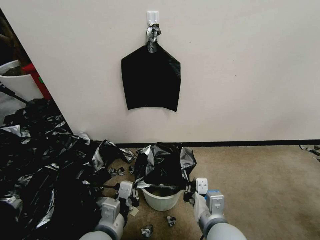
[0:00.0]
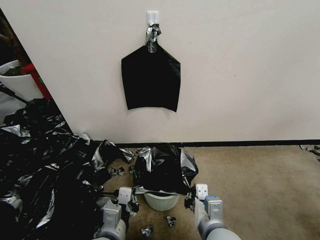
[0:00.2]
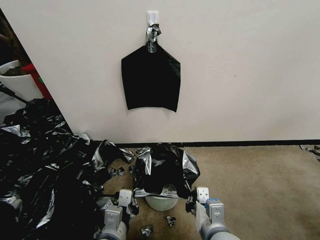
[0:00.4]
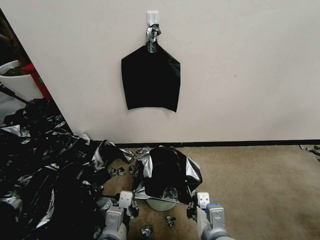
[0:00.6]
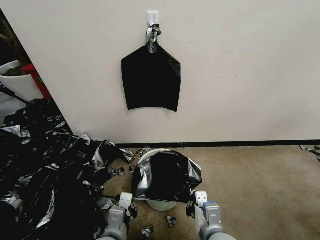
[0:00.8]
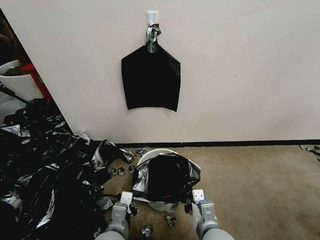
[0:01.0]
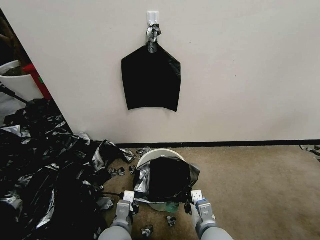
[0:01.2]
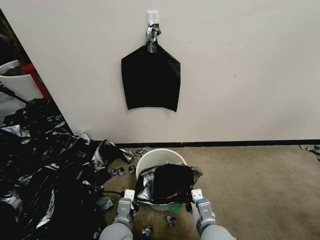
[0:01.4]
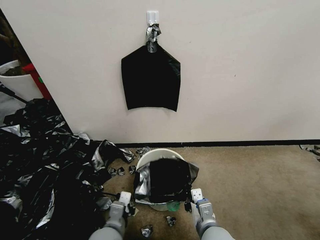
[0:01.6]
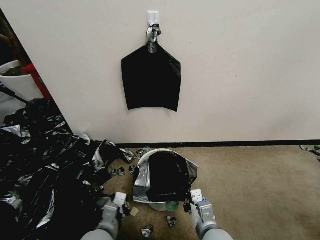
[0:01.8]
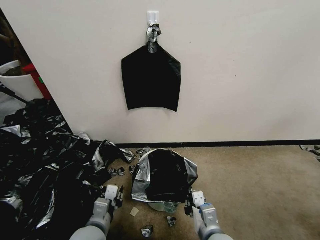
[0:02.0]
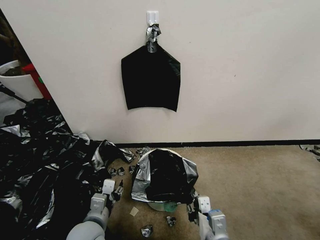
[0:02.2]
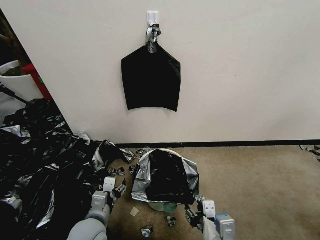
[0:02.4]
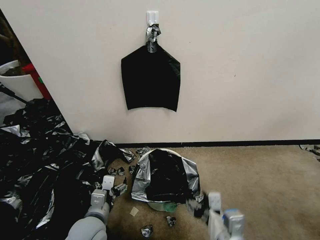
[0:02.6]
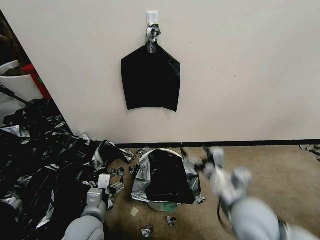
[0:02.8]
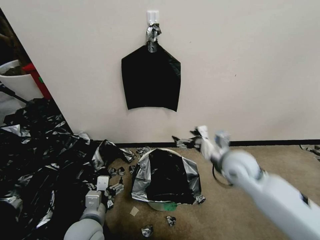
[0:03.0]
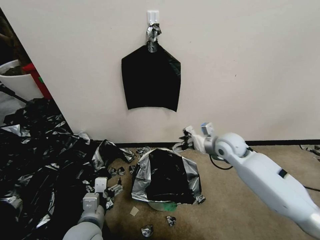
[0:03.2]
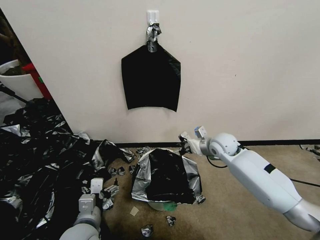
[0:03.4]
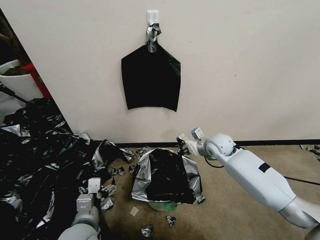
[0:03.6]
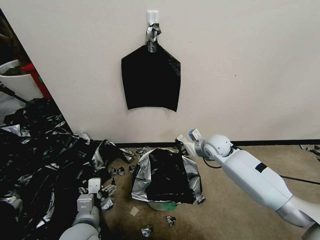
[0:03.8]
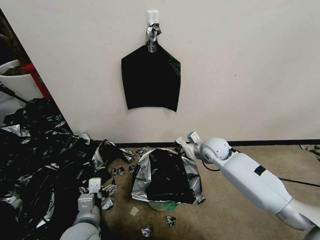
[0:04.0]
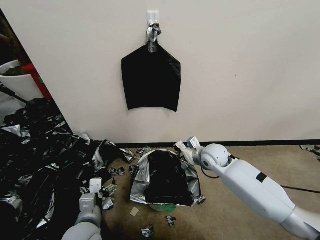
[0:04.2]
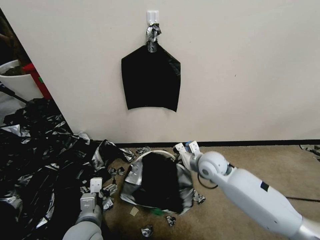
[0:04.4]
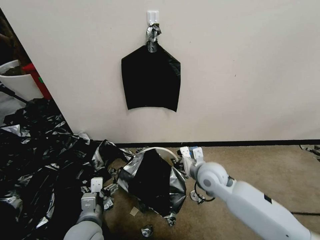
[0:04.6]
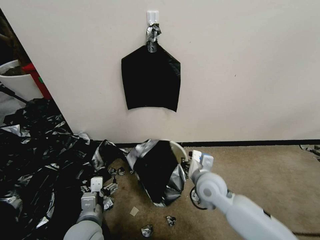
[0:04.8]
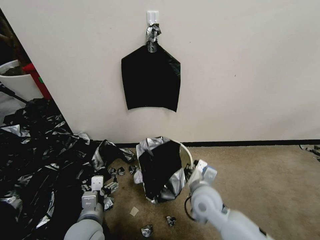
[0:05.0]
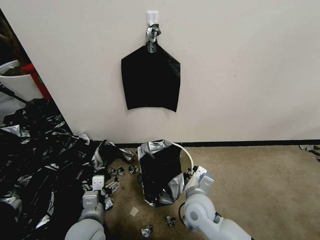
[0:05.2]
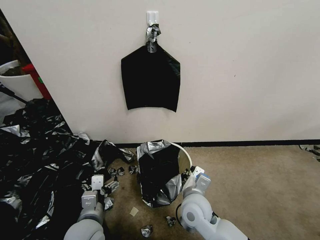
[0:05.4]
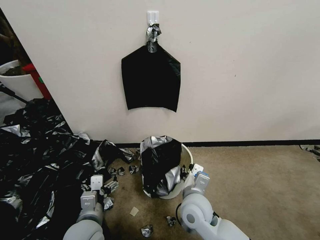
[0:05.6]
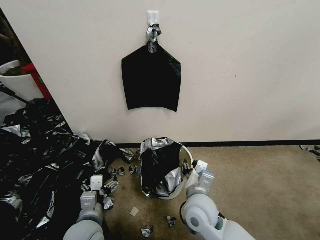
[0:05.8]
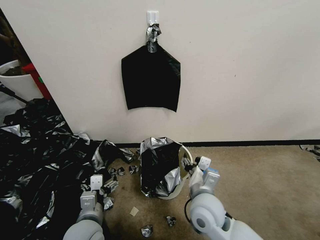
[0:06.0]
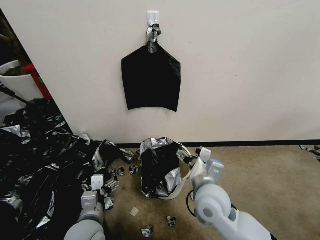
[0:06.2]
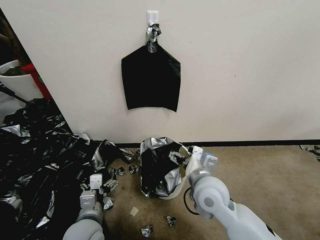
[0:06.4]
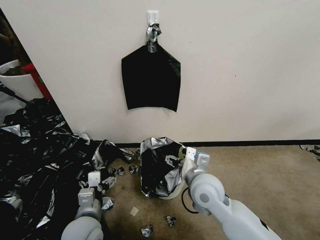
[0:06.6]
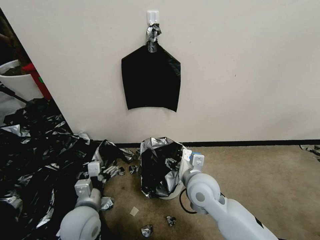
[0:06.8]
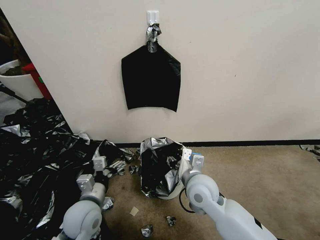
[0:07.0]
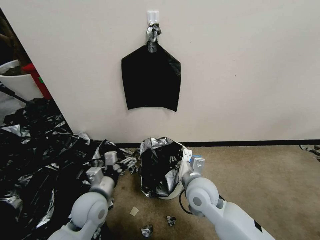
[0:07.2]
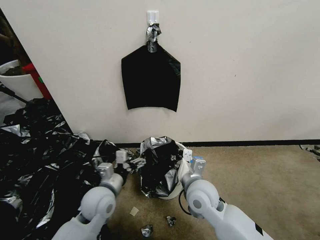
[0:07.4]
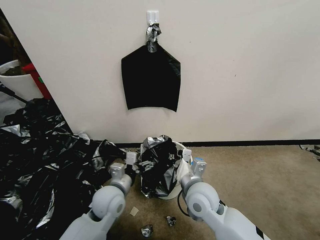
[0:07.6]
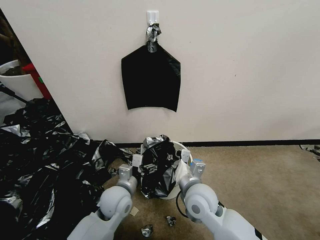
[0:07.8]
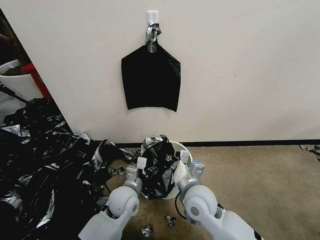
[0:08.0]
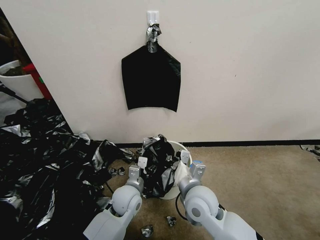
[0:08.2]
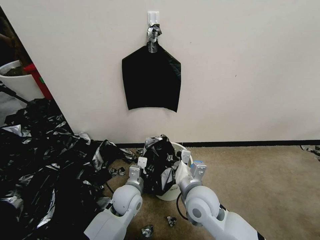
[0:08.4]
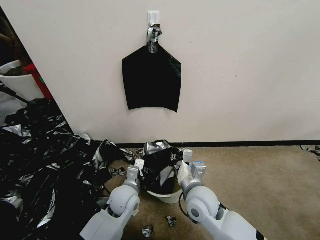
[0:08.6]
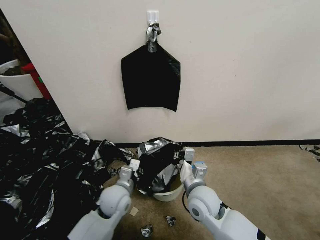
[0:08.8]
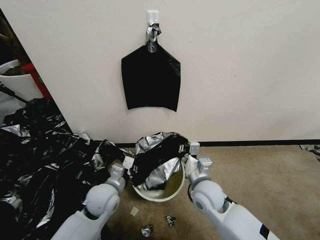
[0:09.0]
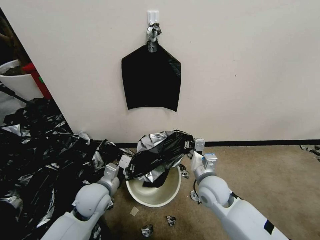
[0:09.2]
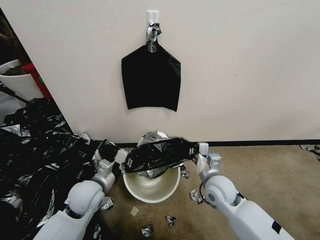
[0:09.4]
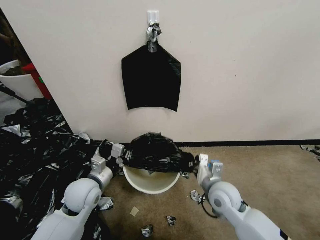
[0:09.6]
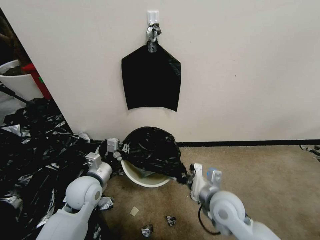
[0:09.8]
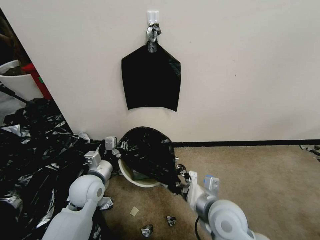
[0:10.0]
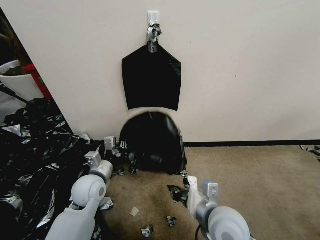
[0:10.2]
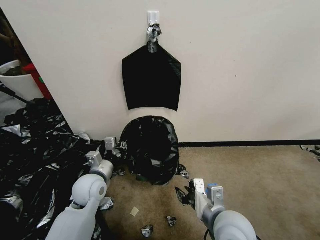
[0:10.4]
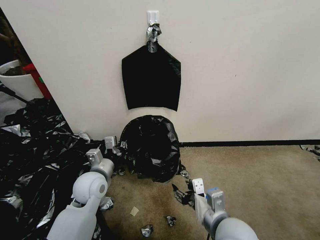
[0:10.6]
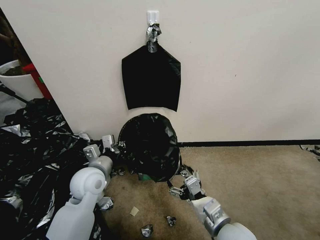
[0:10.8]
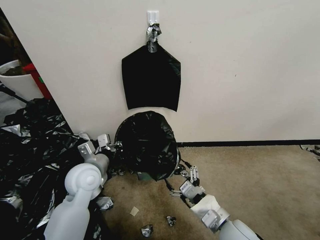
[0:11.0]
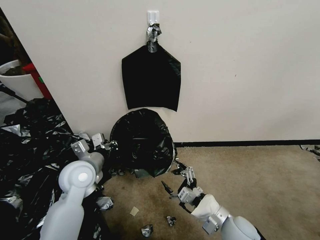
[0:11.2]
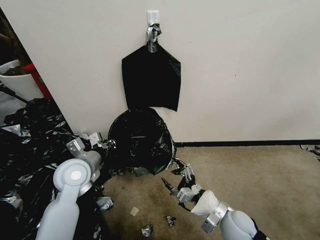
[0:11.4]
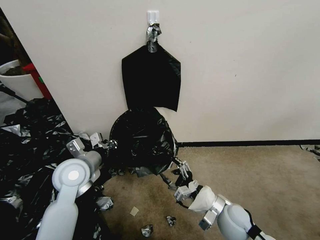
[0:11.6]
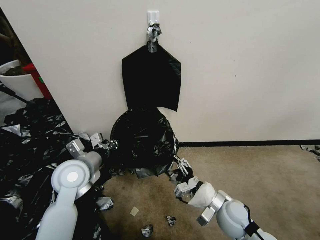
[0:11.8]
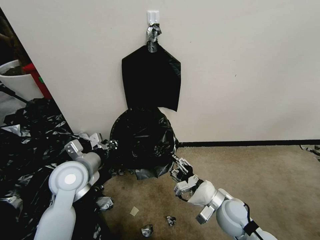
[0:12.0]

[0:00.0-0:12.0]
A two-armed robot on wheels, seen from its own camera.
Task of the whole recording: Place a trash bag onto the trash bin.
0:00.0 to 0:01.6: The two grippers go about 10 cm downward.
0:01.6 to 0:03.0: The left gripper shifts about 5 cm to the left, and opens up, while the right gripper is displaced forward, upward and to the right by some 25 cm, and opens up.
0:03.0 to 0:04.4: The right gripper moves downward and to the left, roughly 10 cm, goes forward and returns, approximately 10 cm each way, and closes its fingers.
0:04.4 to 0:06.0: The right gripper goes about 15 cm backward, and opens its fingers.
0:06.0 to 0:07.6: The left gripper shifts approximately 10 cm forward. The right gripper closes up.
0:07.6 to 0:09.0: The left gripper closes its fingers.
0:09.0 to 0:10.4: The right gripper shifts approximately 10 cm backward and upward, and opens up. Meanwhile the left gripper moves approximately 5 cm.
0:10.4 to 0:12.0: The left gripper travels upward by about 10 cm; the right gripper heads downward and forward, covering roughly 10 cm, and opens and closes again.

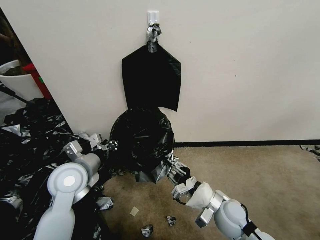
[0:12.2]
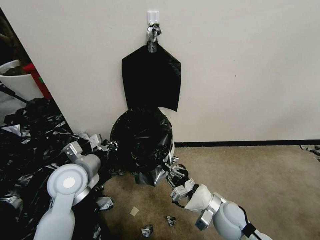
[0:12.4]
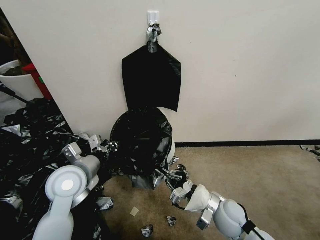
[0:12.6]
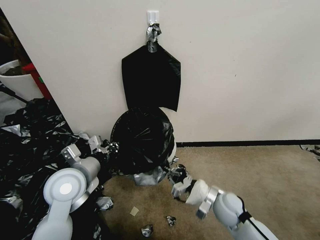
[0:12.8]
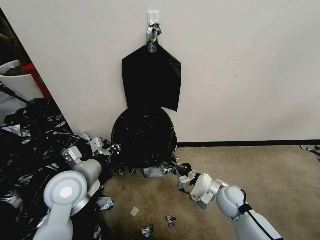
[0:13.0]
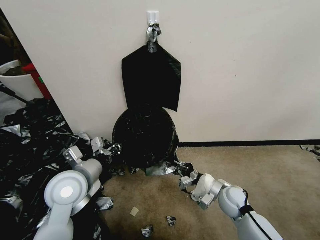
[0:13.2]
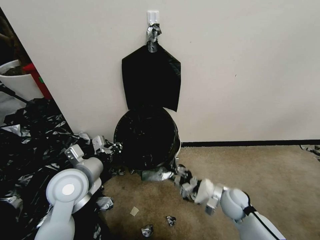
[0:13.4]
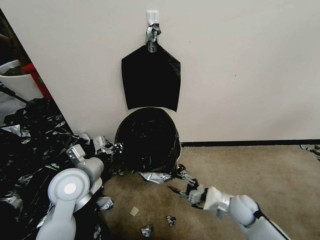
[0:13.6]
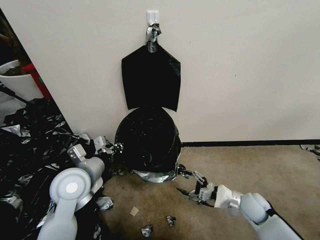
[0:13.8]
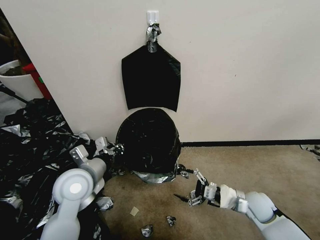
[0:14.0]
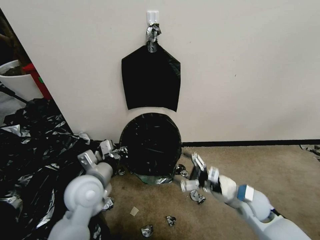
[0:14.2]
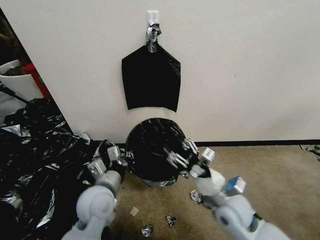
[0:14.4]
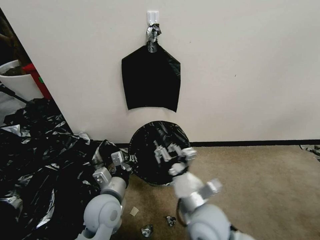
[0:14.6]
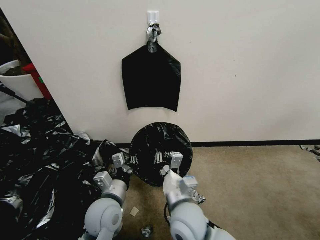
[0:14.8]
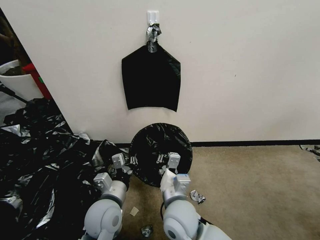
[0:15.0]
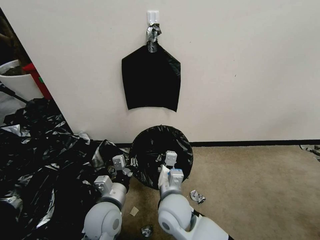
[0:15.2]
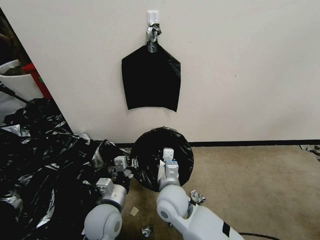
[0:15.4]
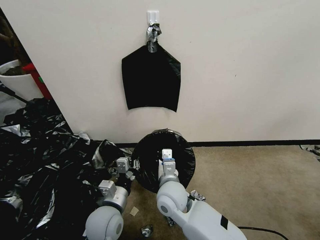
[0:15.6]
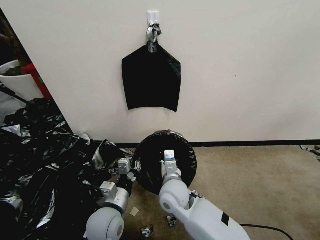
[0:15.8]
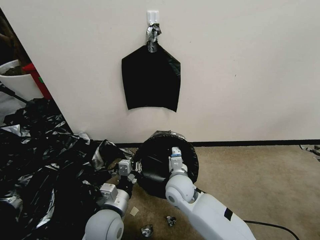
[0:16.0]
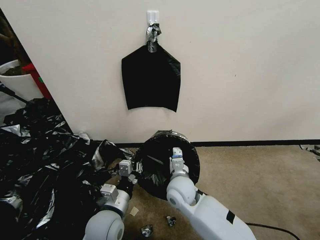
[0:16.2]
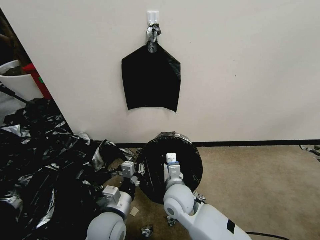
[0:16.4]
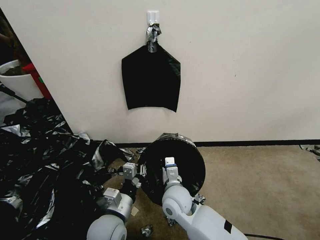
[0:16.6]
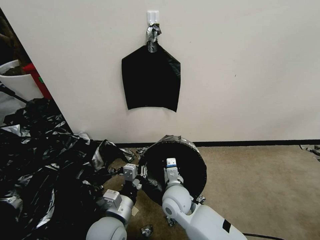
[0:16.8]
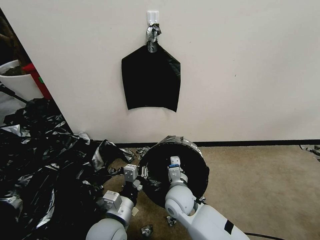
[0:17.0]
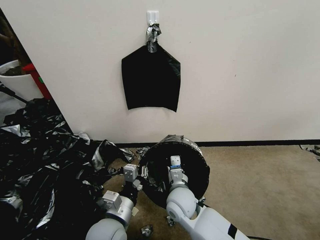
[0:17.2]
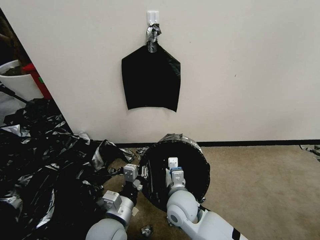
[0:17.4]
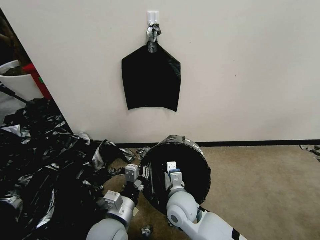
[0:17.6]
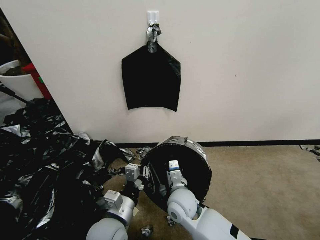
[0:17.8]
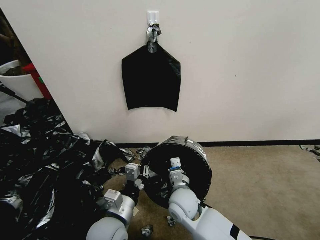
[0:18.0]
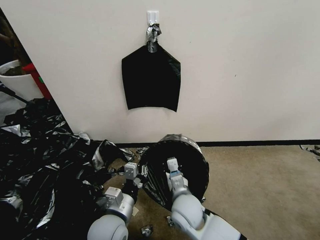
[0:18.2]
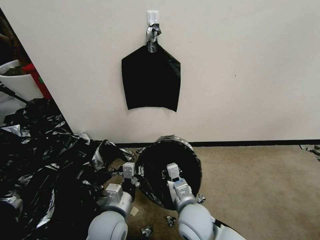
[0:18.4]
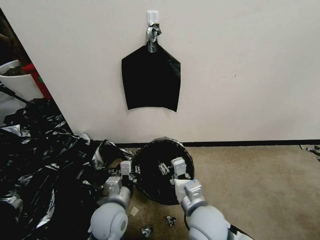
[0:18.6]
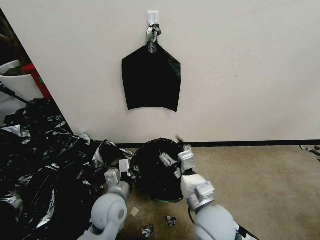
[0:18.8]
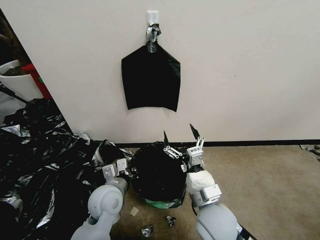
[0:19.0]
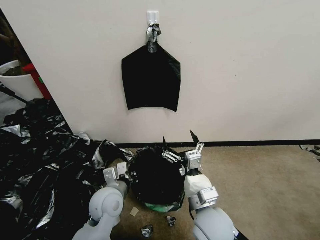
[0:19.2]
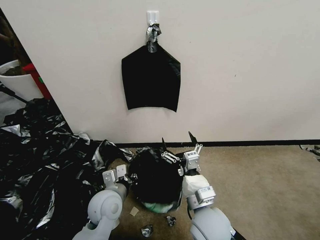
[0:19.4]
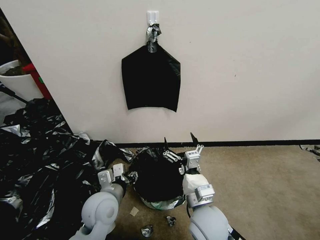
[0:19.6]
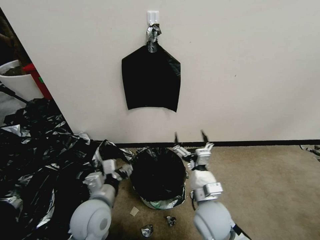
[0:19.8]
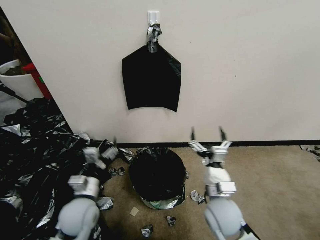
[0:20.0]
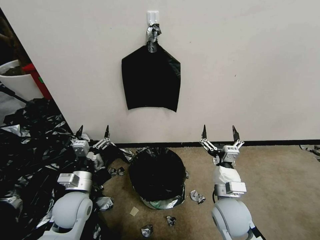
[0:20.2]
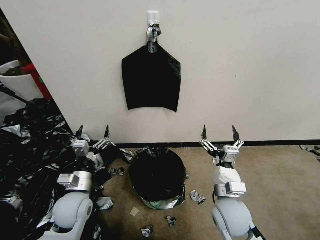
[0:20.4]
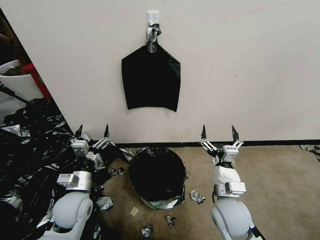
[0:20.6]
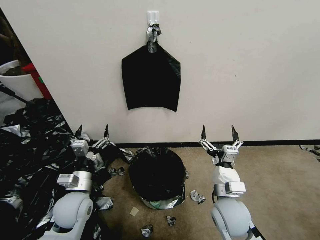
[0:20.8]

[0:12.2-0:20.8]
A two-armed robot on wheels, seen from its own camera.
Task of the whole recording: Place a trash bag onto the trash bin.
0:12.2 to 0:13.6: The right gripper shifts roughly 10 cm to the right and downward.
0:13.6 to 0:15.0: The left gripper goes about 10 cm downward and to the right. The right gripper is displaced to the left and upward by roughly 30 cm, and closes.
0:15.0 to 0:16.6: The right gripper goes approximately 5 cm forward.
0:16.6 to 0:18.0: The grippers stay close to where they were, moving slightly.
0:18.0 to 0:19.4: The left gripper shifts approximately 5 cm forward. Meanwhile the right gripper travels backward, upward and to the right by about 10 cm, and opens its fingers.
0:19.4 to 0:20.8: The left gripper heads to the left, covering approximately 10 cm, and opens up; the right gripper shifts roughly 5 cm to the right.
